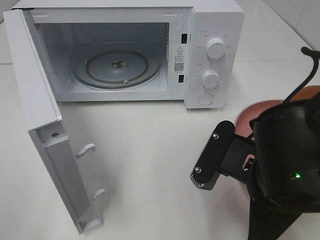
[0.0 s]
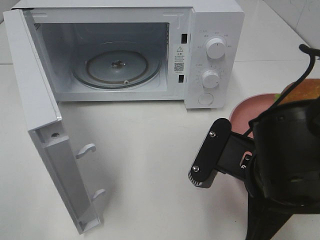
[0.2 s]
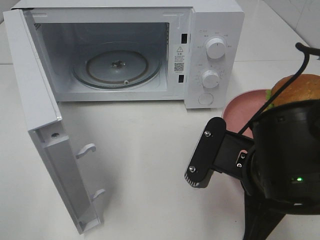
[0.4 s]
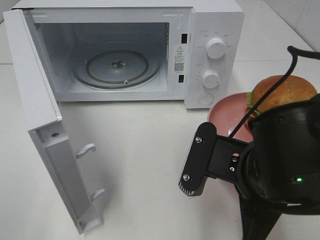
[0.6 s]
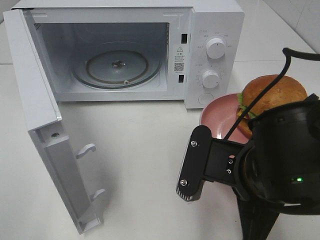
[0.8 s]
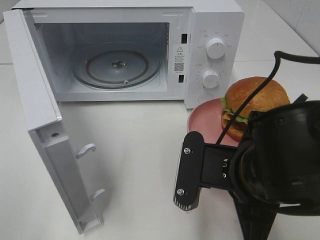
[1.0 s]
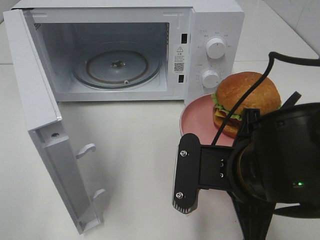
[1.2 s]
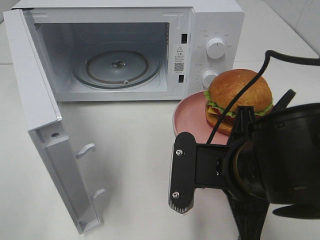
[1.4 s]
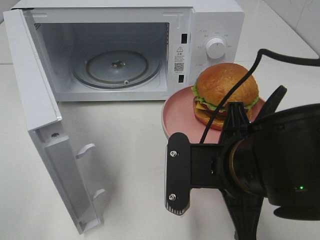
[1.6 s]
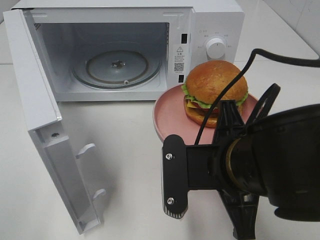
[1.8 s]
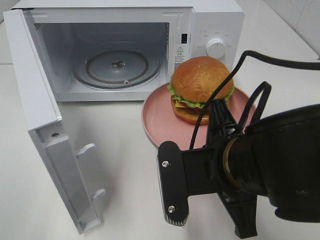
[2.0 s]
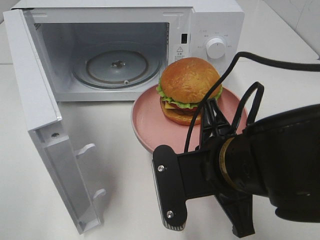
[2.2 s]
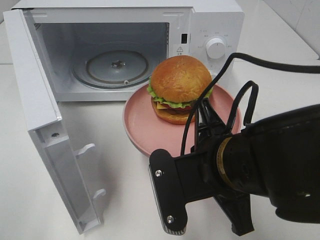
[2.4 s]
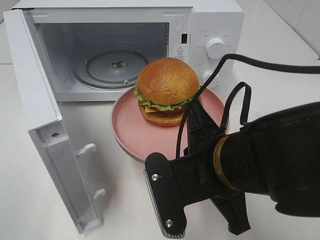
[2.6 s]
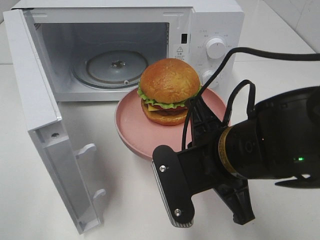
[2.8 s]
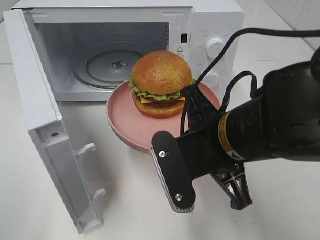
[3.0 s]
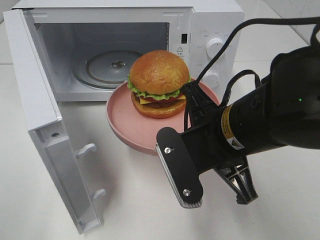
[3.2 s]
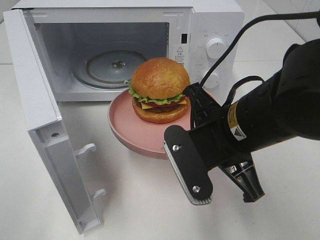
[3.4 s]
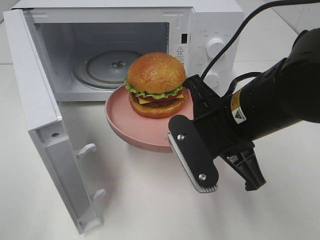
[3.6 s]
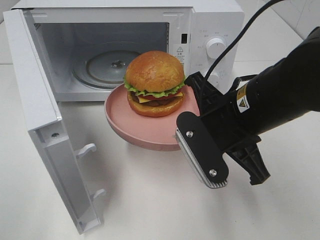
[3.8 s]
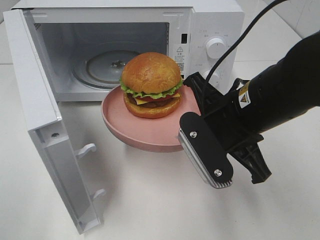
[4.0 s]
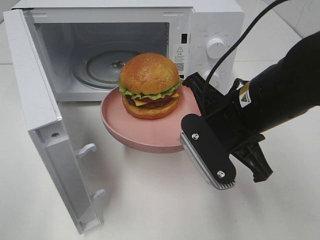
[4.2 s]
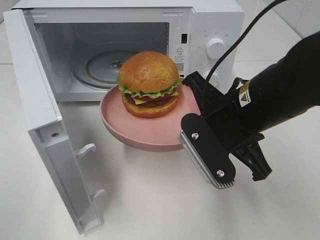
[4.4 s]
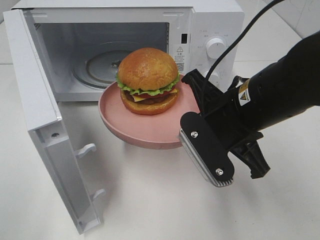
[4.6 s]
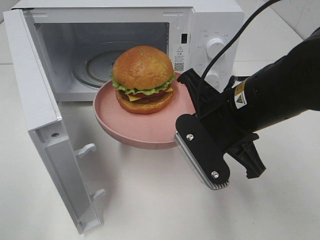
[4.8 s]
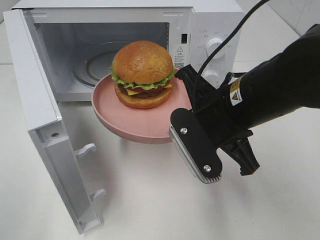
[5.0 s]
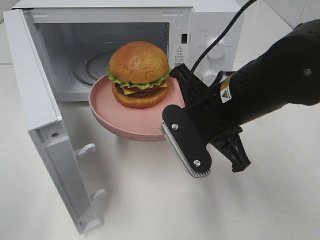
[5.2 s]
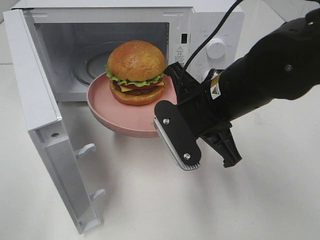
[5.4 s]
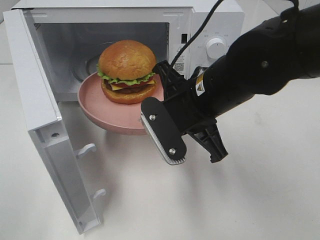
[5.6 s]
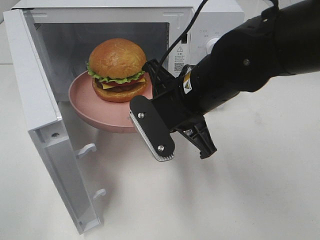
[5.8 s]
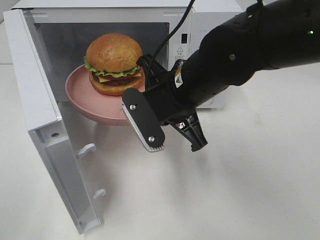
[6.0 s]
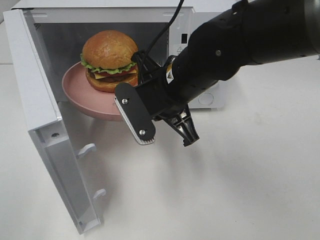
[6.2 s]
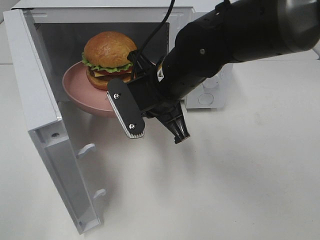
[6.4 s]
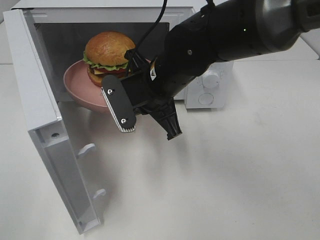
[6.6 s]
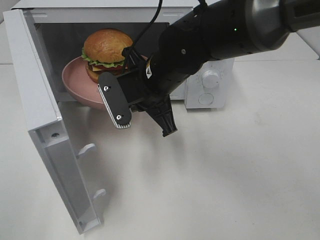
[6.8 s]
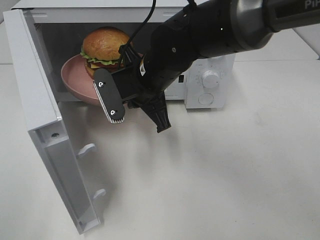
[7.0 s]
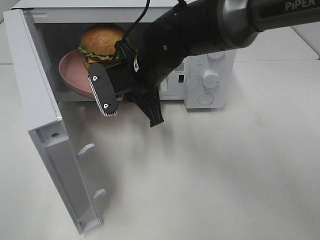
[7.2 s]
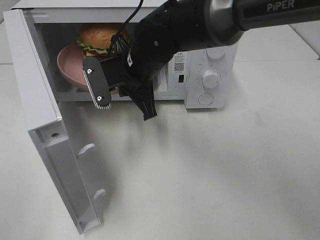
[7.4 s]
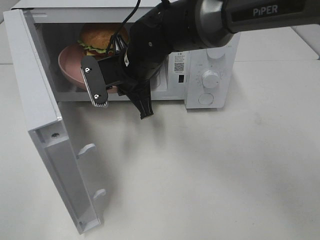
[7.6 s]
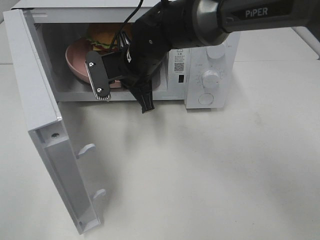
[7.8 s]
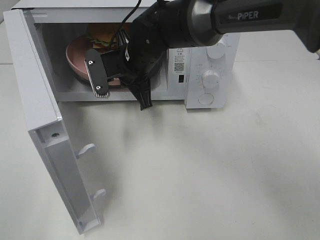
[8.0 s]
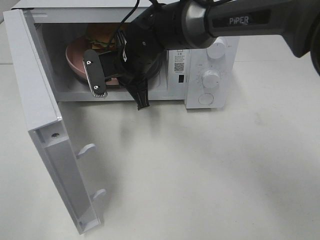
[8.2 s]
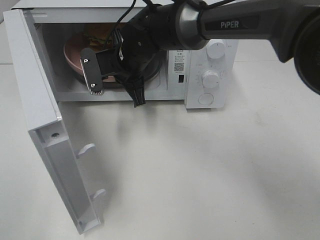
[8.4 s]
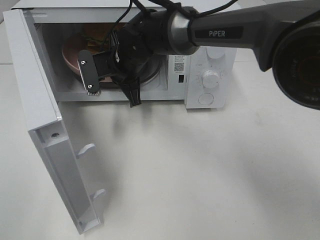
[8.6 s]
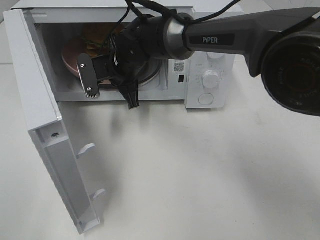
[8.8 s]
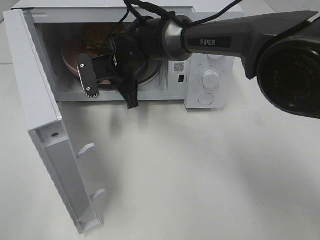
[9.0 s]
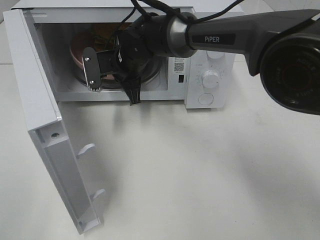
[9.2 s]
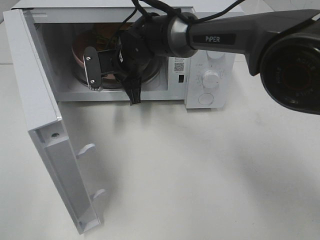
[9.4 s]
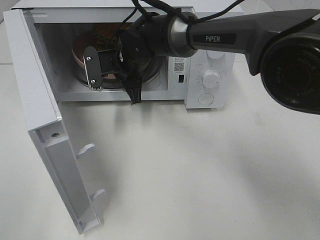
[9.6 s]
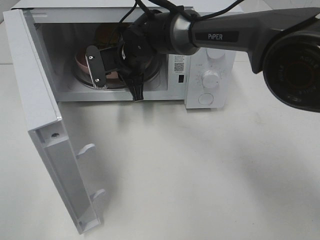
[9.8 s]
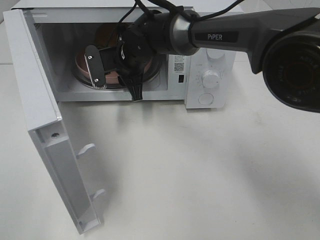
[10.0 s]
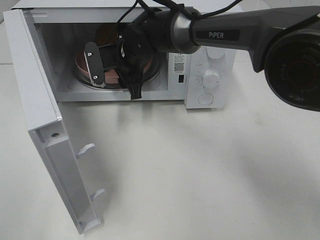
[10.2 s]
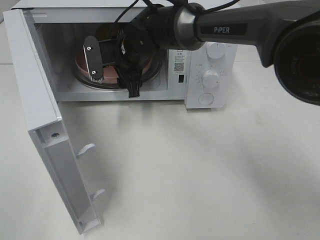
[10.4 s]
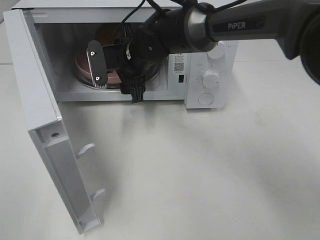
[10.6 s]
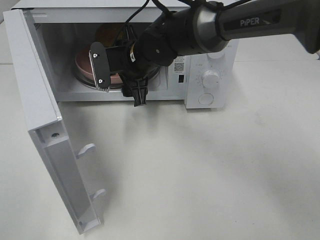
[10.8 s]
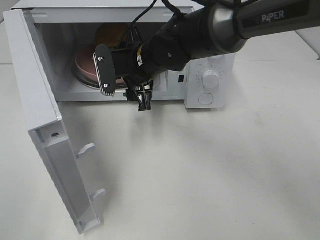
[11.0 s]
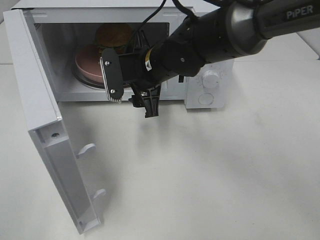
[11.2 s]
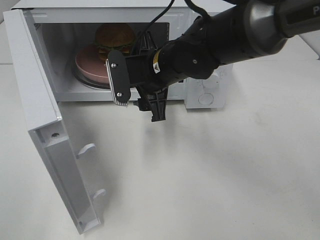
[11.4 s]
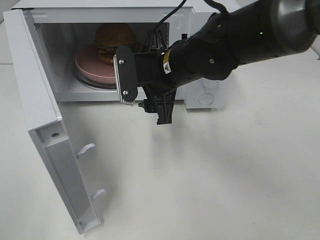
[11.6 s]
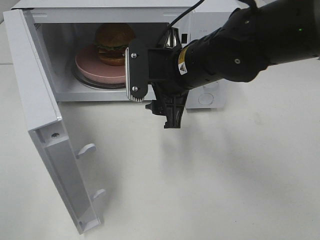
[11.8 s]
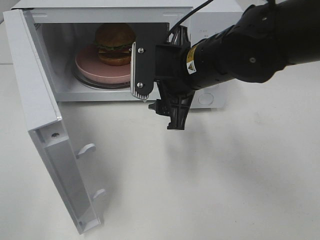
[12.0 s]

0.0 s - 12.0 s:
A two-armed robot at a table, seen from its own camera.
Task of the whole recording: Heat the burger.
Step, 0.0 s - 10.0 s: Right hand: place the plate in the microwave.
3.0 s - 4.4 s: The right gripper moves some 5 cm.
4.4 s - 6.0 s: The right gripper is displaced to the left and forward by approximately 10 cm.
6.0 s - 7.6 s: The right gripper heads forward and to the left, covering approximately 10 cm.
7.6 s - 9.0 s: The right gripper heads forward, covering roughly 5 cm.
9.0 s - 10.4 s: The right gripper opens its fingers.
10.4 s - 12.0 s: The right gripper heads backward and to the right, covering some 15 cm.

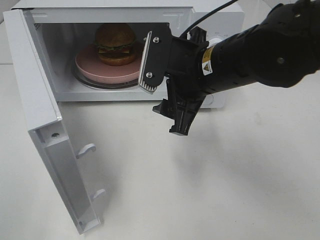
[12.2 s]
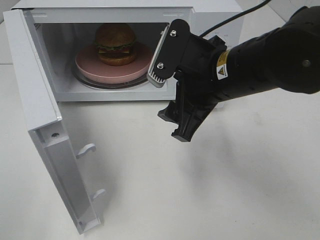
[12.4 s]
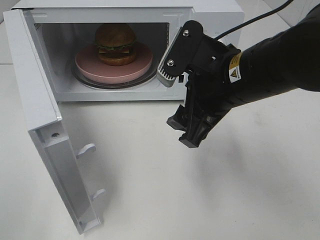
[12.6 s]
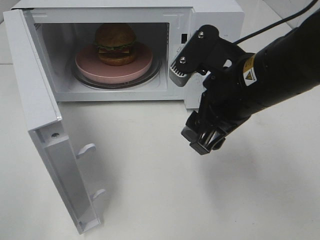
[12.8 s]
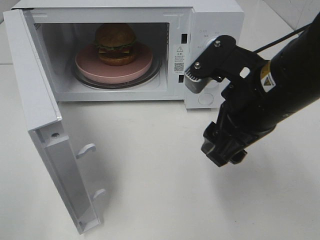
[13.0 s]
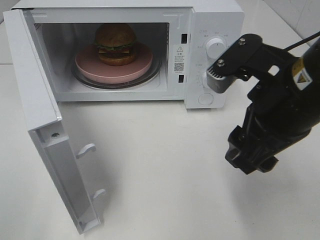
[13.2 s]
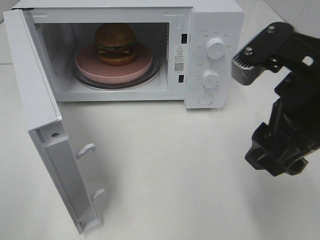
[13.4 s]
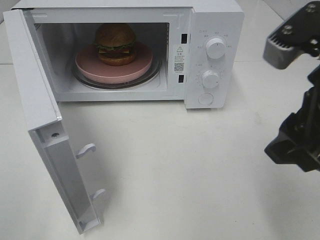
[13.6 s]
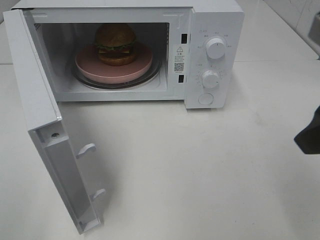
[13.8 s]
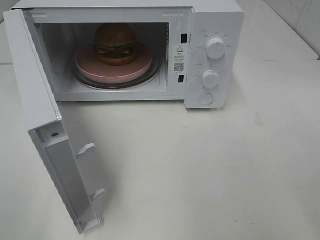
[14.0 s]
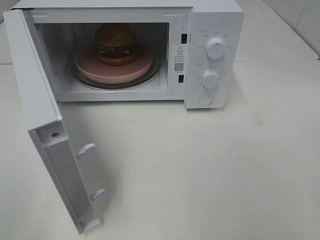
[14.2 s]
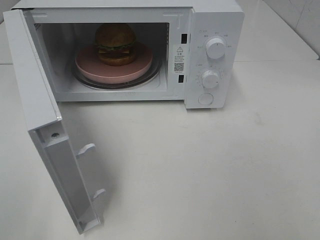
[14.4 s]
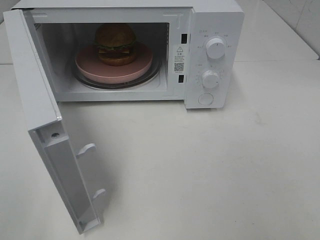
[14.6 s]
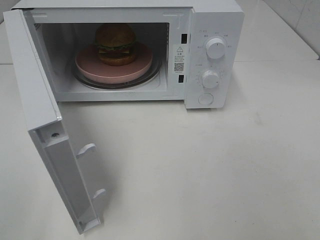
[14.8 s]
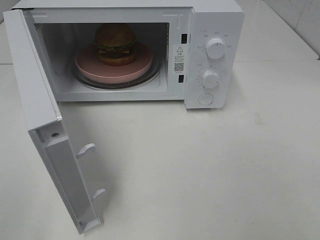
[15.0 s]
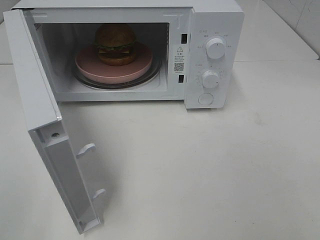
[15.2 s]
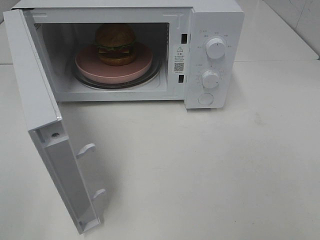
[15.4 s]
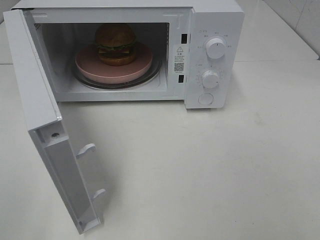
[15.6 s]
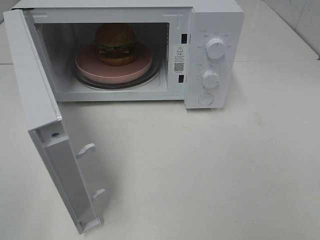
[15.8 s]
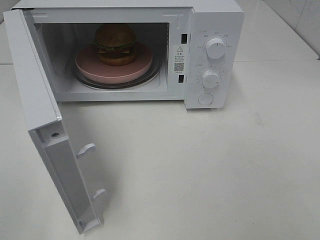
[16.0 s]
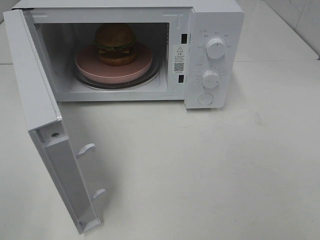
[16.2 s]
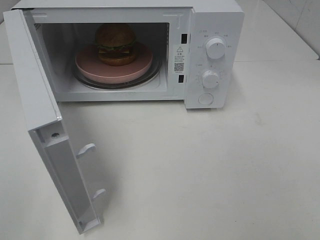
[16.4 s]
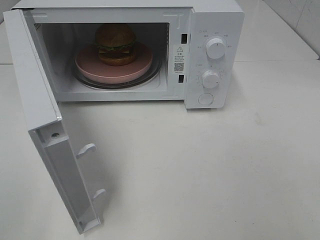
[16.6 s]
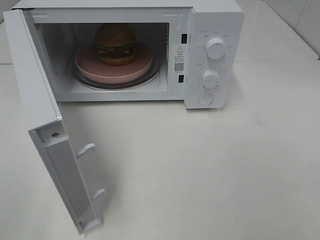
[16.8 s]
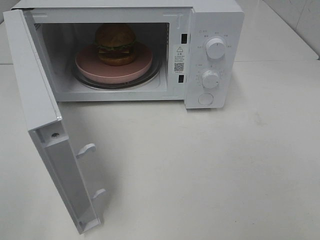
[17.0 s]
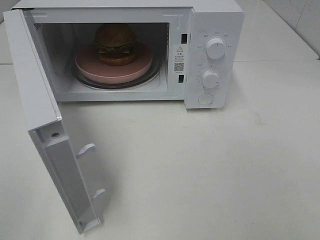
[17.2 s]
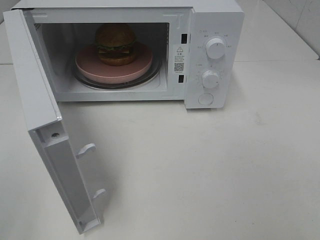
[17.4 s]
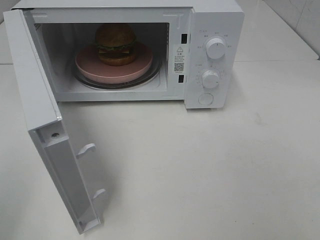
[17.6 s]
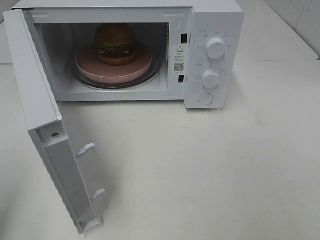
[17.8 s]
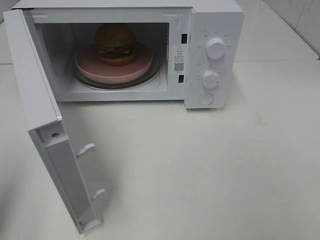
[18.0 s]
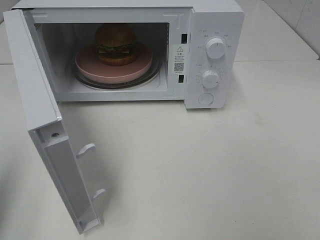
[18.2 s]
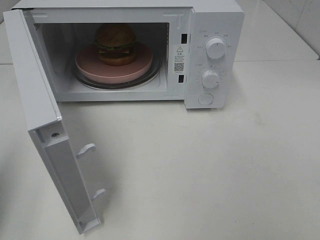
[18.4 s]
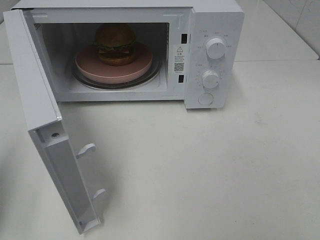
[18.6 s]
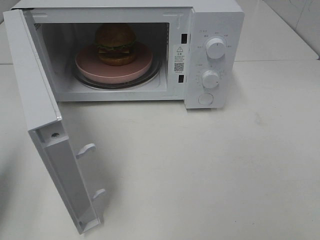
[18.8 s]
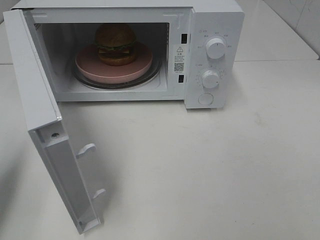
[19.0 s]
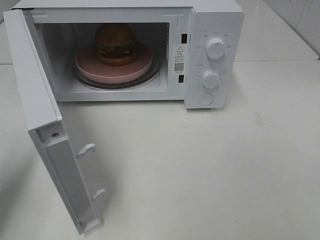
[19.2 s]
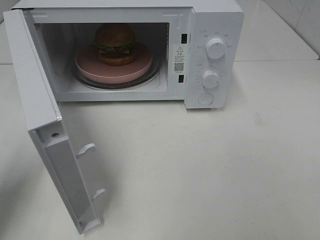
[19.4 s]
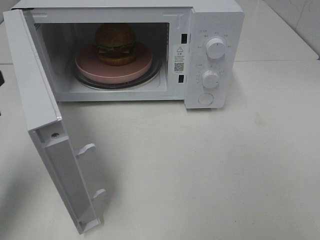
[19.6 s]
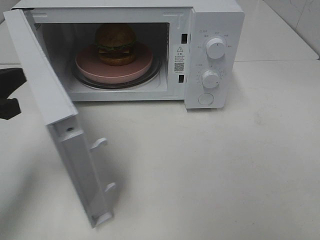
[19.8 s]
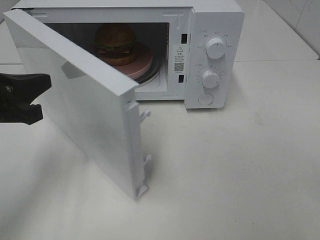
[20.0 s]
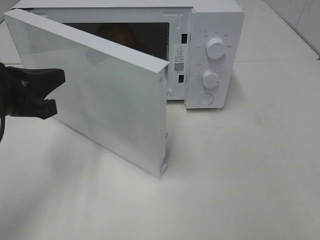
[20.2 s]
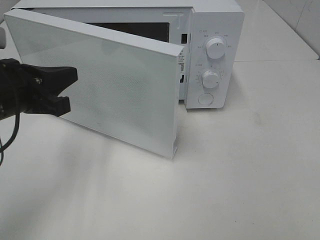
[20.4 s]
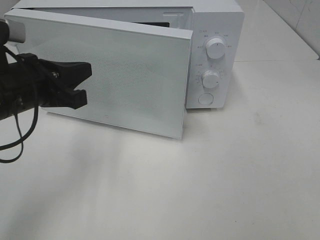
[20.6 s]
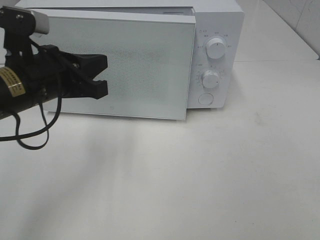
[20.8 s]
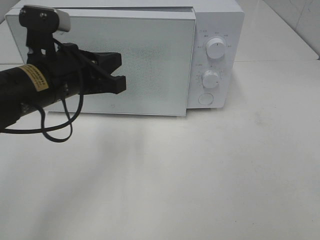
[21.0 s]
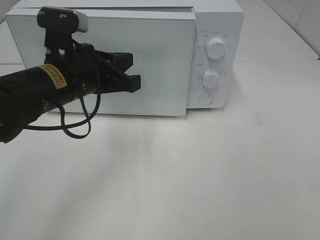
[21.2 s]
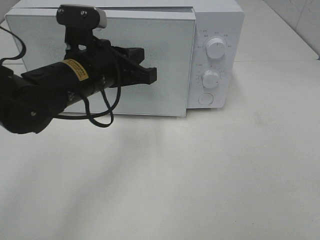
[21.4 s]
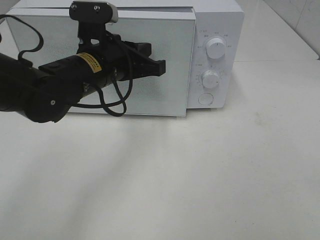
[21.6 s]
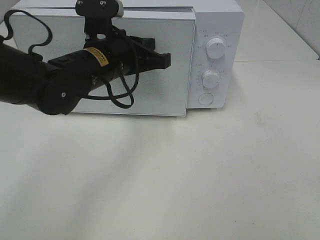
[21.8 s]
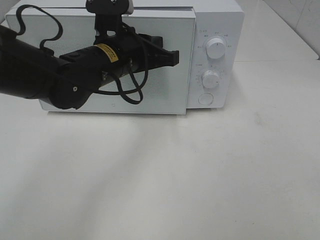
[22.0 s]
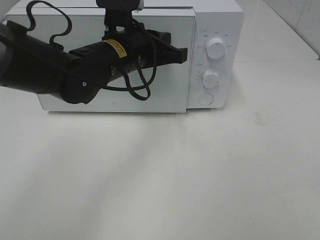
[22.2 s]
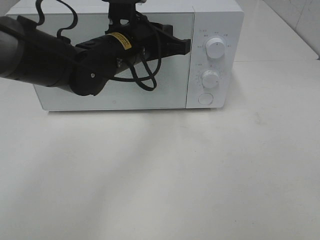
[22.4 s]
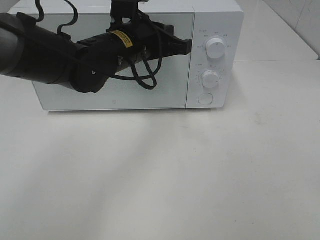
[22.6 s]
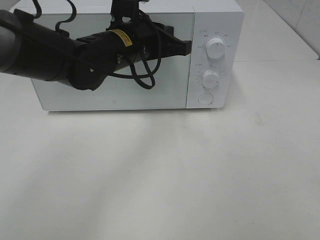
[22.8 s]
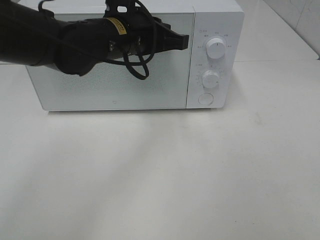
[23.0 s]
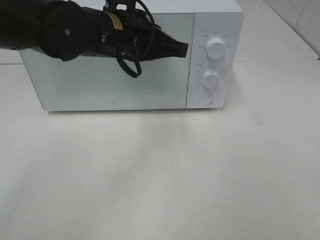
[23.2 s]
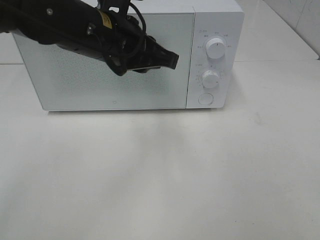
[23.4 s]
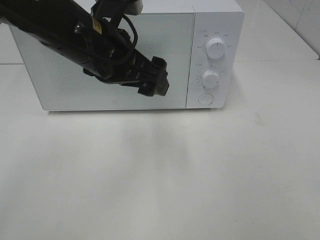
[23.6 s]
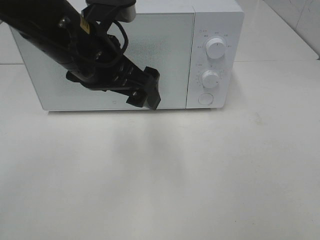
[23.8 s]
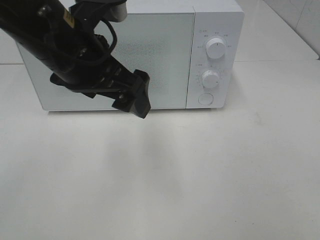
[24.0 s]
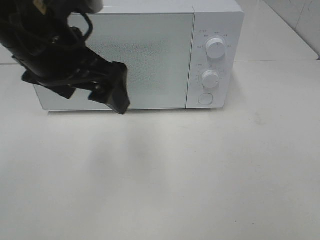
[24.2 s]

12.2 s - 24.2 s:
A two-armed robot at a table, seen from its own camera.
Task of the whole recording: Heat the burger.
Step, 12.2 s - 23.0 s: Left hand: close the microwave door.
12.2 s - 13.8 s: The right gripper goes some 20 cm to the right, backward and upward.
13.8 s - 15.2 s: The right gripper travels backward and to the right by some 15 cm.
15.2 s - 16.6 s: Neither gripper changes place.
16.6 s - 18.2 s: The left gripper moves forward, some 15 cm, and closes its fingers.
18.2 s - 19.8 s: The left gripper goes approximately 15 cm forward, to the right and downward.
19.8 s - 21.2 s: The left gripper heads to the right and forward, covering about 15 cm.
21.2 s - 22.6 s: The left gripper goes roughly 10 cm to the right and forward.
22.6 s - 24.2 s: The left gripper heads backward, to the left and upward, covering approximately 15 cm, and opens up.
